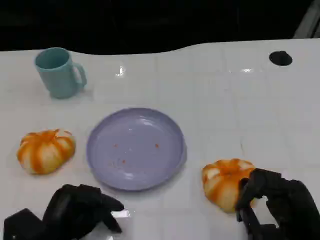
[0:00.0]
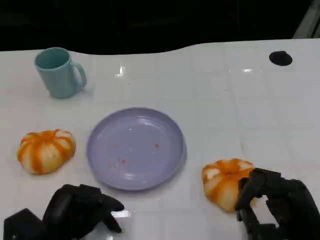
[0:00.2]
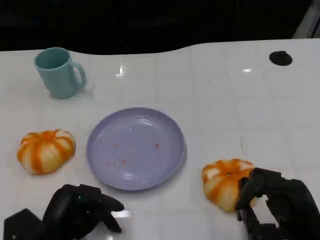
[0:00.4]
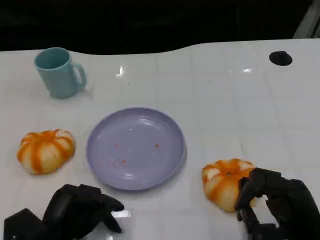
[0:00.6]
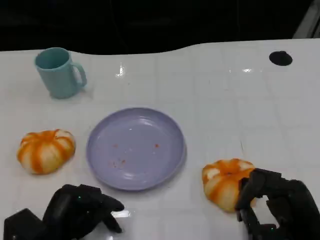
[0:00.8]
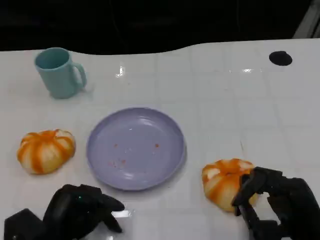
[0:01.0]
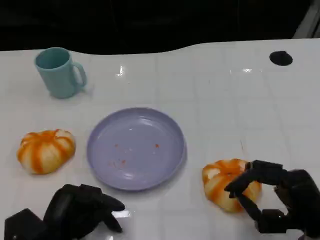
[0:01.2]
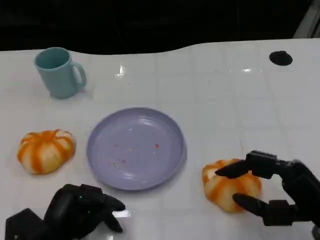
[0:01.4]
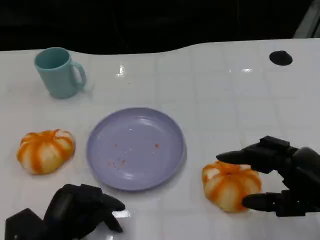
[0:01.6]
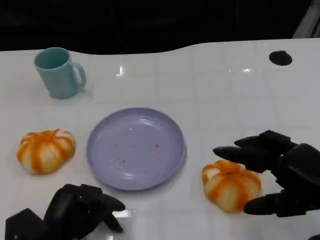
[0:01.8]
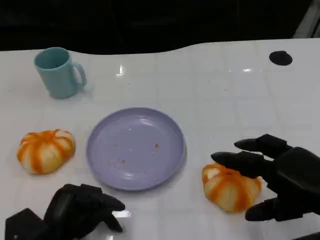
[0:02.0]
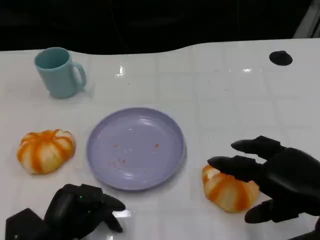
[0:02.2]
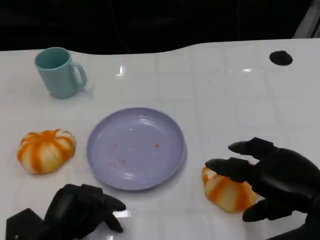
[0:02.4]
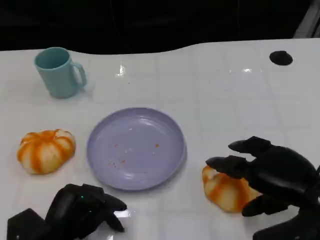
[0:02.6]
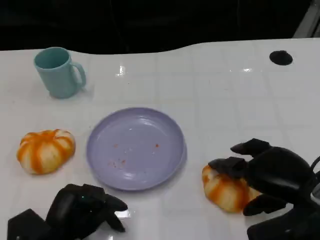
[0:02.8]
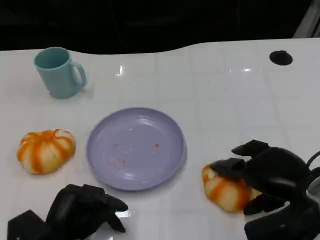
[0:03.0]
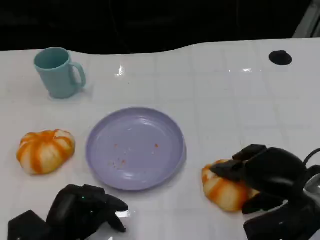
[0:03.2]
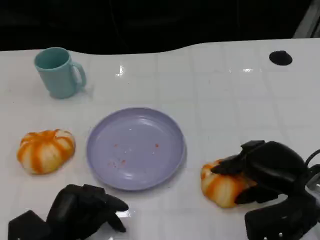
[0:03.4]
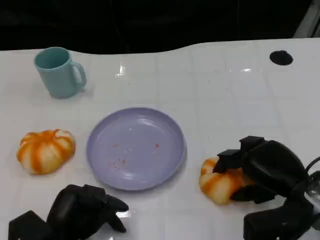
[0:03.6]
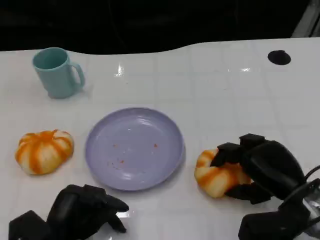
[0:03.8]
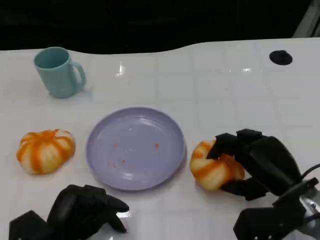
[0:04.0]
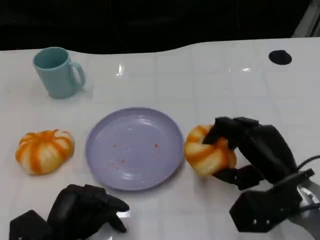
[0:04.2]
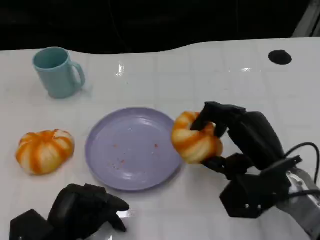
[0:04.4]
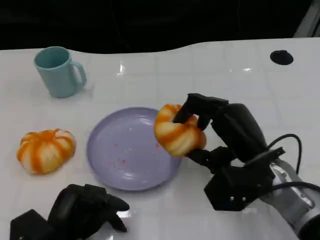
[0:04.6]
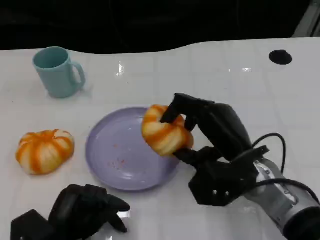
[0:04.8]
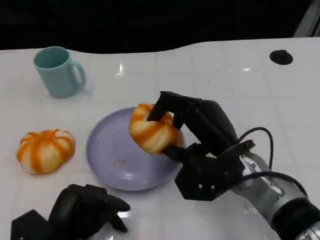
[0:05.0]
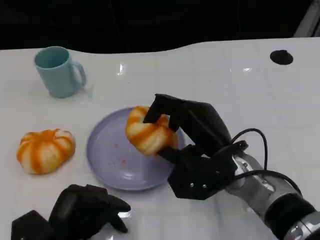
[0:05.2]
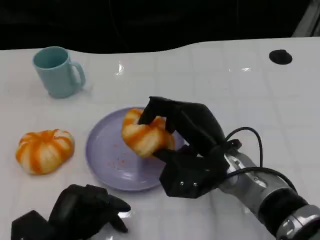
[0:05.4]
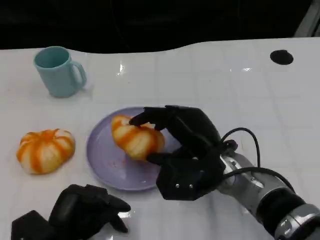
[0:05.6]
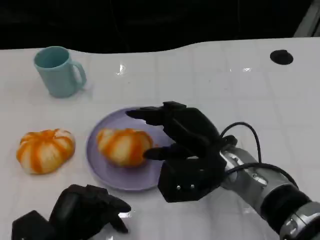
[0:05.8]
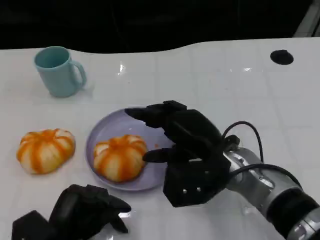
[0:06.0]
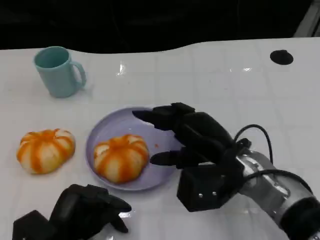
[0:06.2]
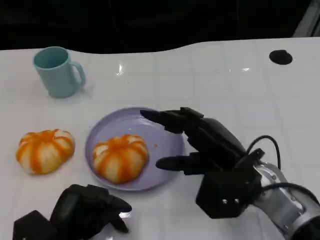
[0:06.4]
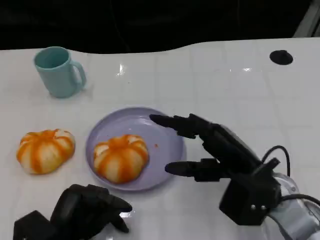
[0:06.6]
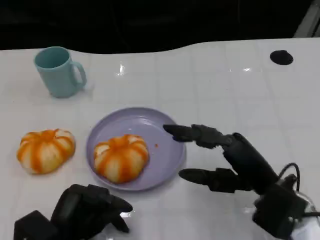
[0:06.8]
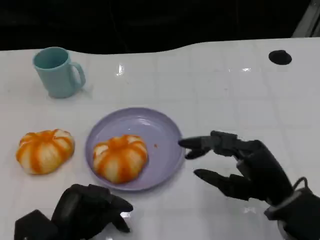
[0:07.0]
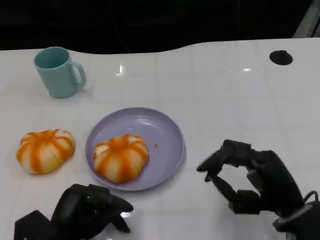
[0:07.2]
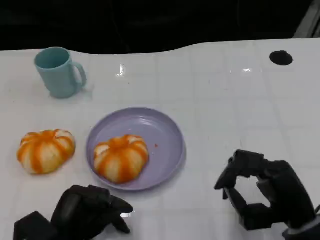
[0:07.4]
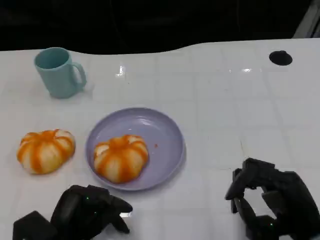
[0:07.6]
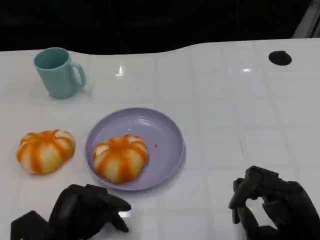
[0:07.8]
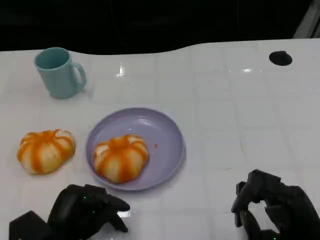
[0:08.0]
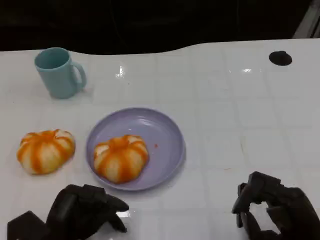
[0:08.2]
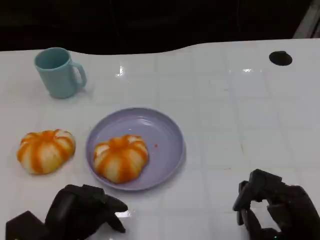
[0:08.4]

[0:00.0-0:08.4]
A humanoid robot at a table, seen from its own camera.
Task of the whole recording: Grasp the bread from the table and place it into the plate.
0:00.0 to 0:01.4: The right hand heads upward, covering roughly 5 cm.
0:02.8 to 0:04.2: The right hand ends up about 5 cm from where it was.
0:04.2 to 0:05.6: The right hand heads to the left, covering approximately 10 cm.
0:05.6 to 0:07.0: The right hand is displaced to the right and backward by about 10 cm.
0:07.0 to 0:08.4: The right hand shifts roughly 5 cm backward.

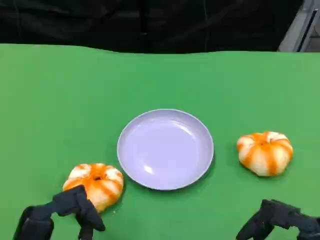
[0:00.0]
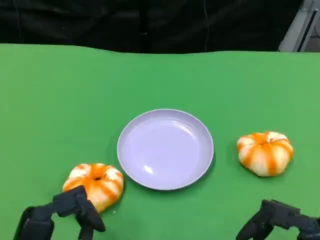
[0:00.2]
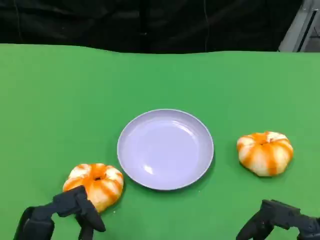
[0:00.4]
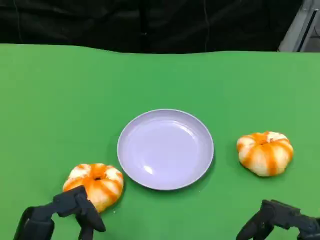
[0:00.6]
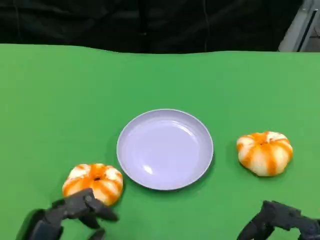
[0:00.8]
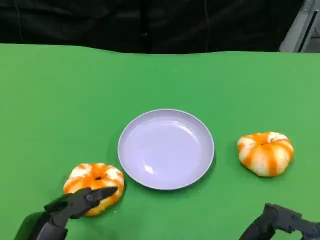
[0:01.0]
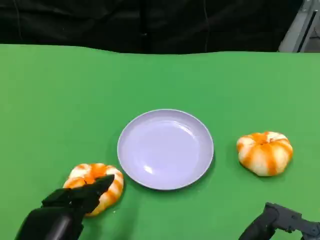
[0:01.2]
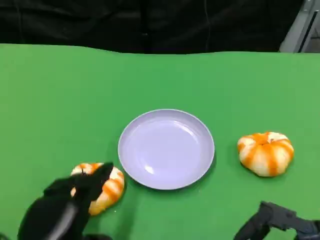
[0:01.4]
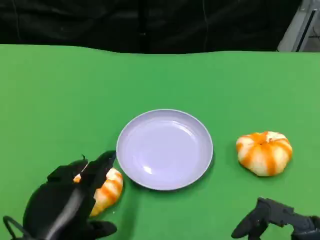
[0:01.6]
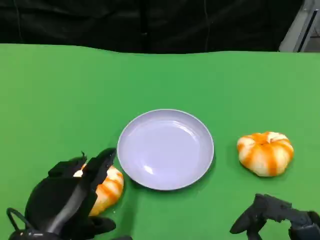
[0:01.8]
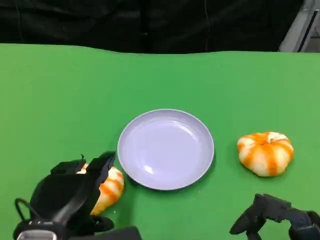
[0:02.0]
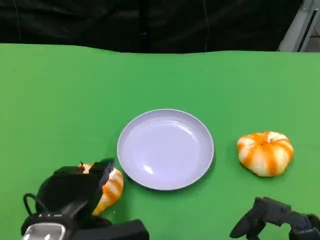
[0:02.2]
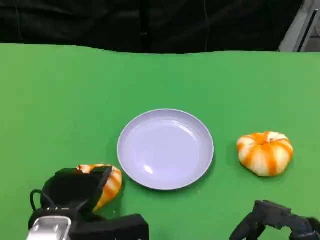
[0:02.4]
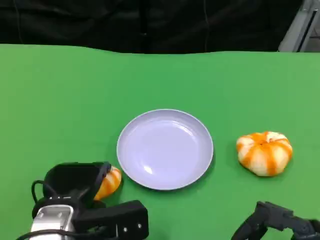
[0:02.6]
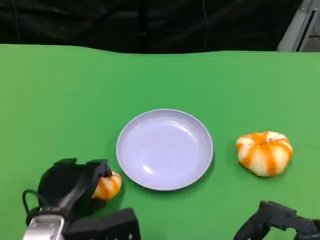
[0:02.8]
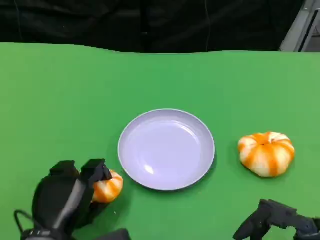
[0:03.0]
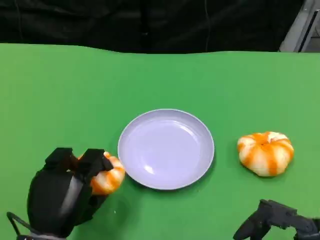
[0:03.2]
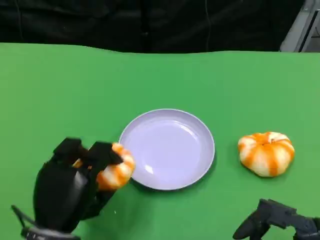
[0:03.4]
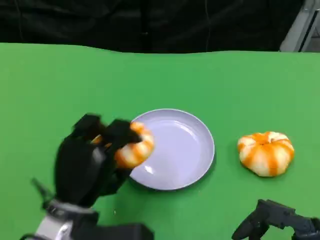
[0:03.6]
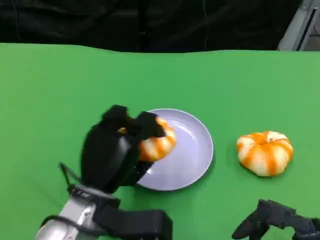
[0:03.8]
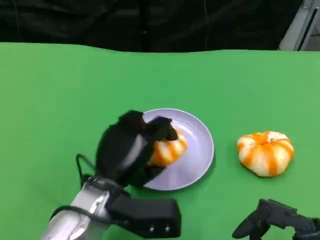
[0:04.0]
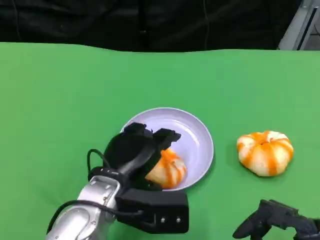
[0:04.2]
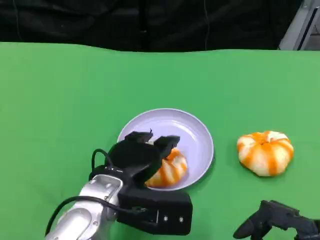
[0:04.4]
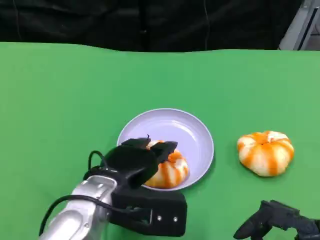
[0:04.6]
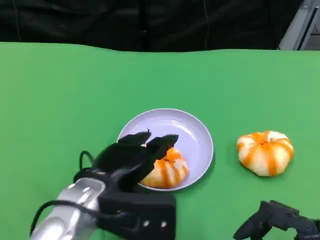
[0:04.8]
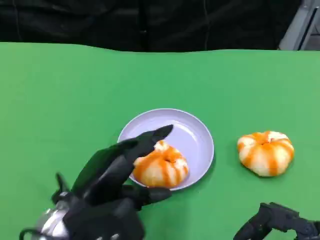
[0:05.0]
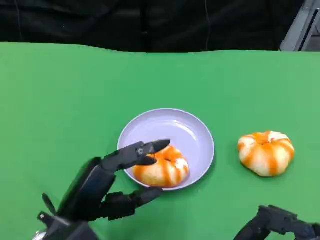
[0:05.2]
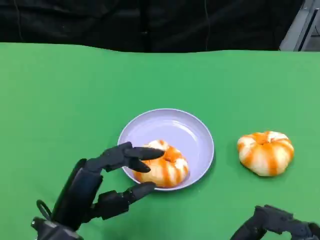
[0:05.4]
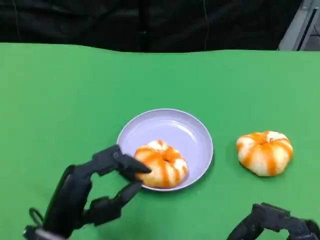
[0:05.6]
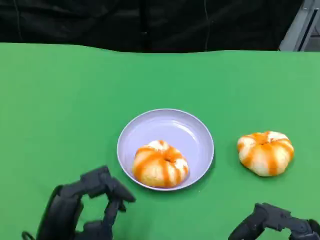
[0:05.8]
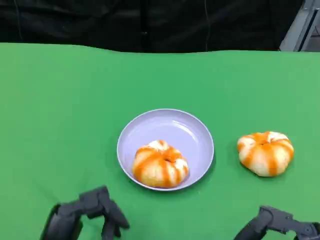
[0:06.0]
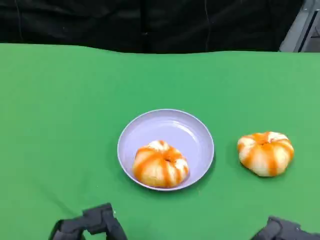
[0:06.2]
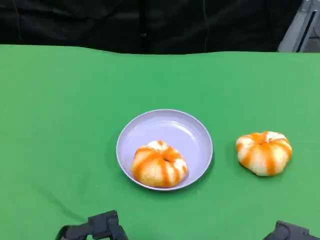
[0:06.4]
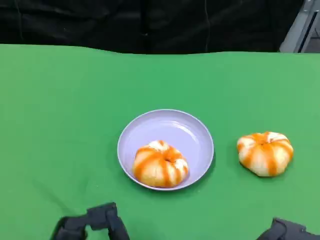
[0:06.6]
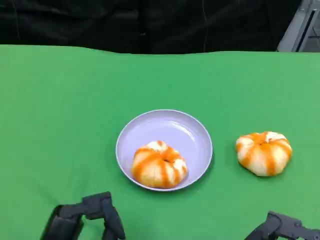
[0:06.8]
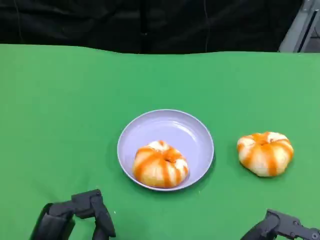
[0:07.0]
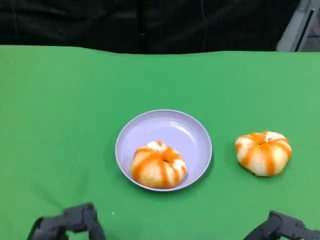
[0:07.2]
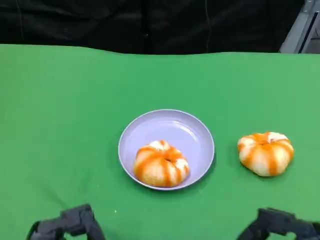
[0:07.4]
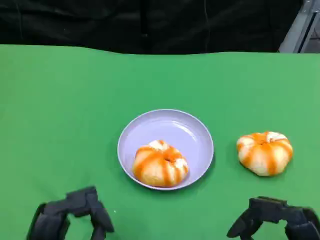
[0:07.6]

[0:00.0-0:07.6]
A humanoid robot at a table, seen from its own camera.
Task of the whole recording: Grasp the bread from the table and place it into the plate.
0:00.0 to 0:01.6: The left hand changes place by some 5 cm.
0:01.6 to 0:03.0: The left hand heads downward, covering roughly 5 cm.
0:03.0 to 0:04.6: The left hand travels to the right, upward and forward by roughly 10 cm.
0:04.6 to 0:06.0: The left hand is displaced backward, to the left and downward by roughly 15 cm.
0:06.0 to 0:07.6: The hands make only small movements.

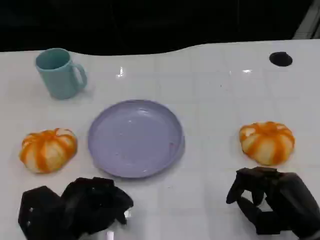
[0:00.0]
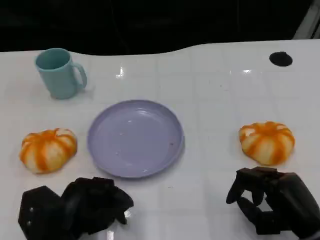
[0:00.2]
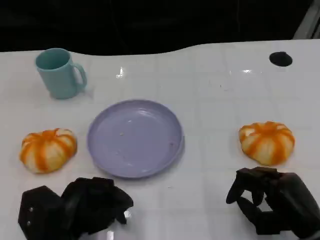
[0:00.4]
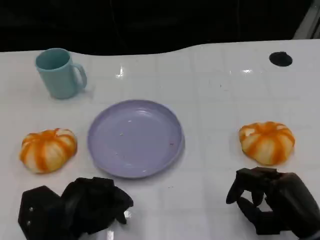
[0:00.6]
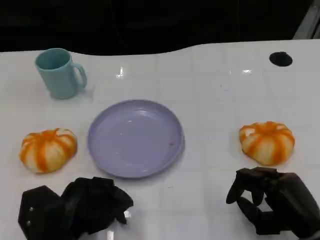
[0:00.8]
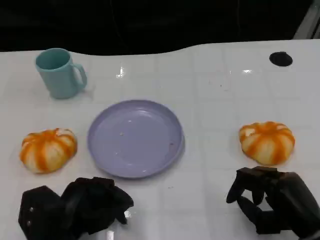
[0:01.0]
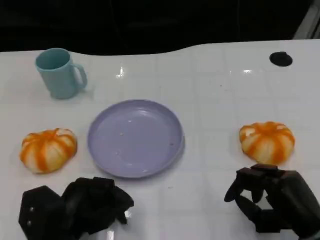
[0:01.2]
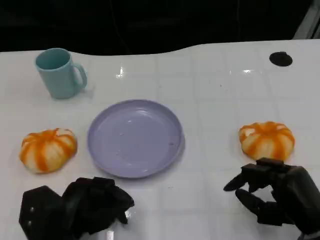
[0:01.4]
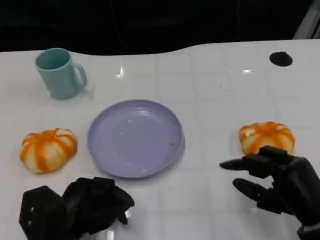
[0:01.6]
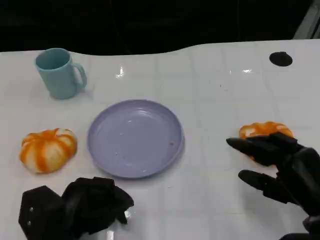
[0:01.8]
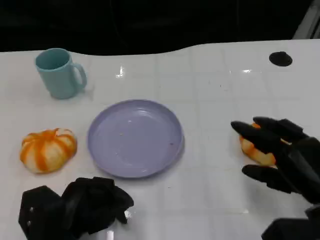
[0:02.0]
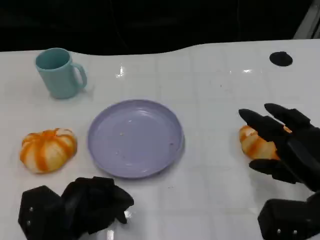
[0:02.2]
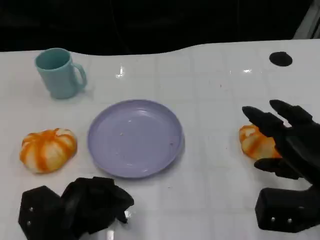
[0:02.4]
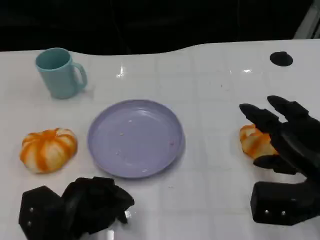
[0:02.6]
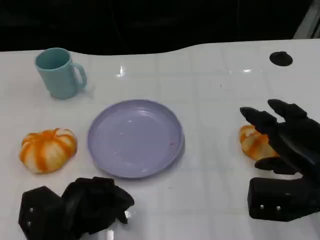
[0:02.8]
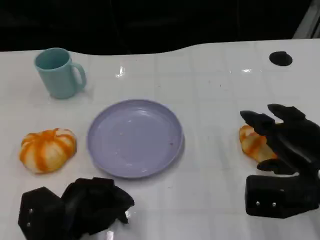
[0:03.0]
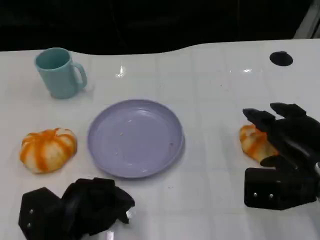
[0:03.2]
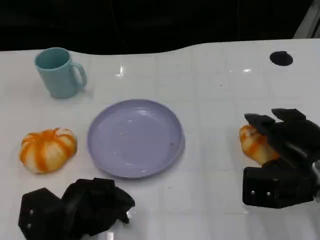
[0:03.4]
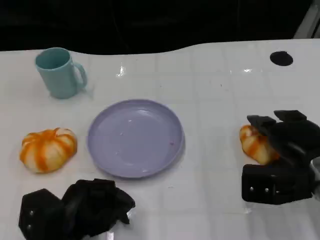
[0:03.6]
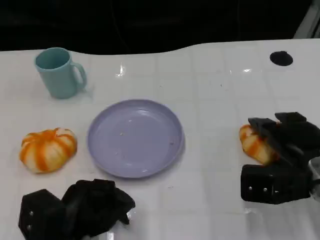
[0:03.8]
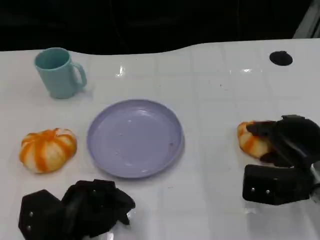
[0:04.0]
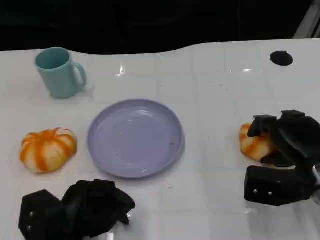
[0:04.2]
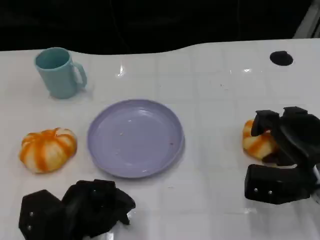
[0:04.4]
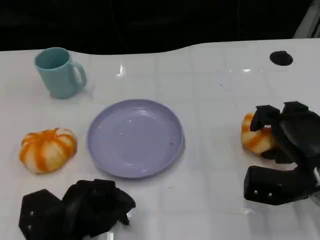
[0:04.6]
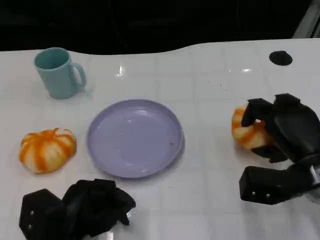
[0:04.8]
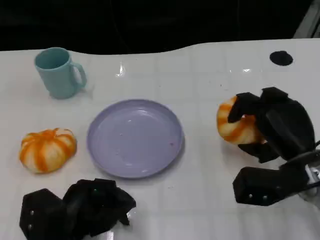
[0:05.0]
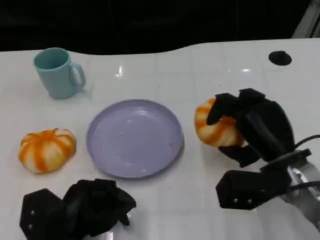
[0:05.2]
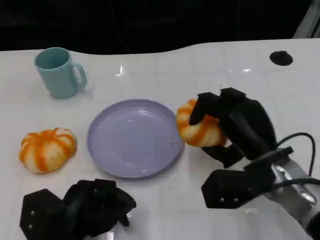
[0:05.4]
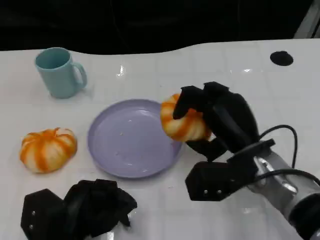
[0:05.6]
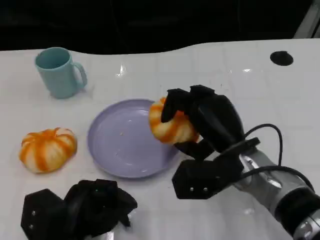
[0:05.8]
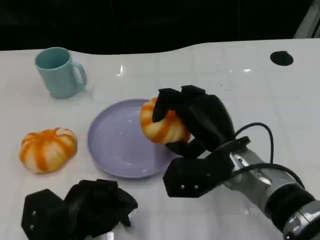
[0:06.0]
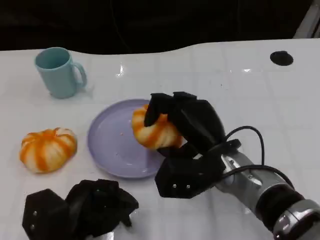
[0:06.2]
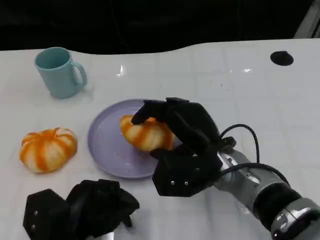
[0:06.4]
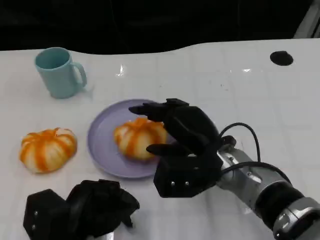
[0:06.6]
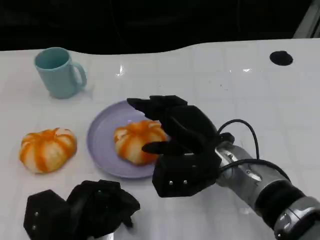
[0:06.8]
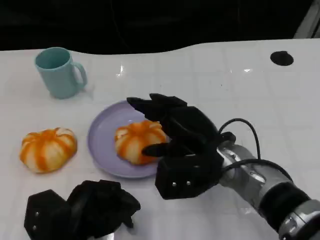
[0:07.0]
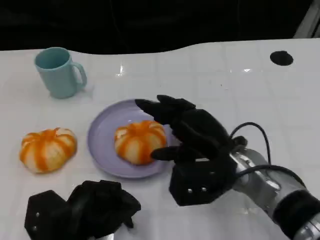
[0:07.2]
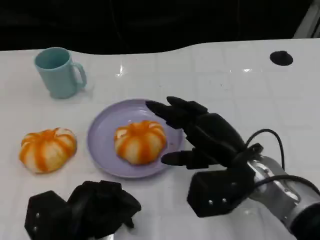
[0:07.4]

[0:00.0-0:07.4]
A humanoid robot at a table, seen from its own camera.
Task of the whole recording: Grasp the bread from the table and place it into the plate.
0:00.0 to 0:01.4: There are only small adjustments of the hands.
0:01.4 to 0:03.0: The right hand travels forward and upward by approximately 10 cm.
0:03.0 to 0:04.4: The hands stay close to where they were, moving slightly.
0:04.4 to 0:06.0: The right hand is displaced to the left by about 15 cm.
0:06.0 to 0:07.4: The hands move only a little.
